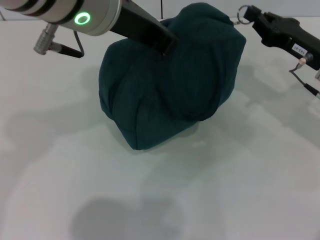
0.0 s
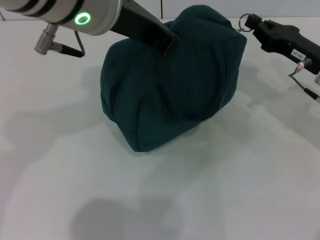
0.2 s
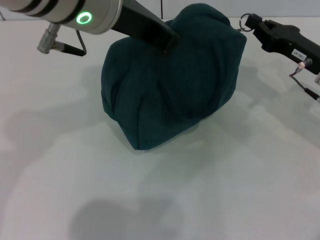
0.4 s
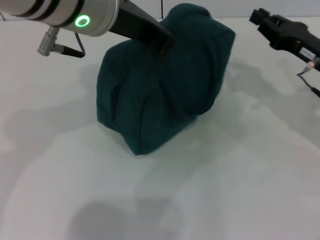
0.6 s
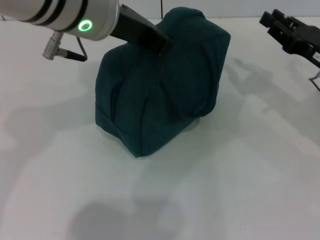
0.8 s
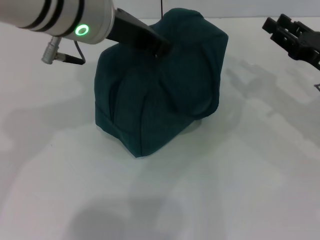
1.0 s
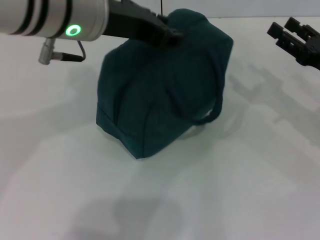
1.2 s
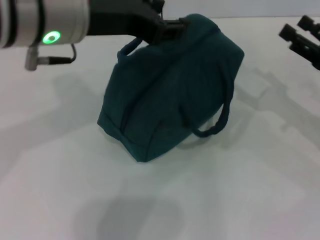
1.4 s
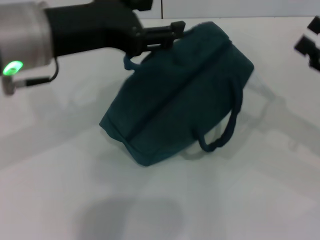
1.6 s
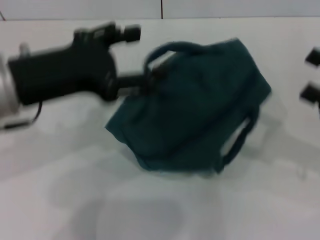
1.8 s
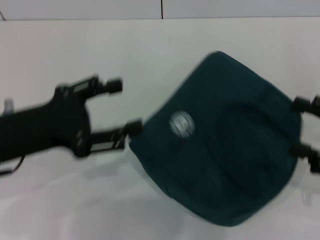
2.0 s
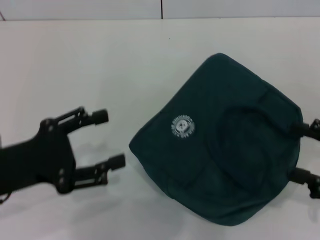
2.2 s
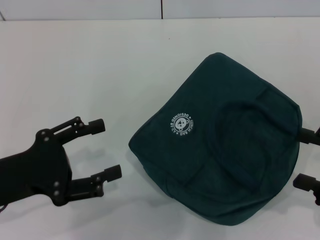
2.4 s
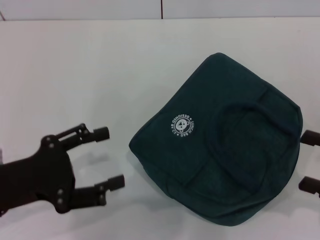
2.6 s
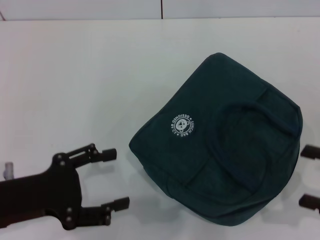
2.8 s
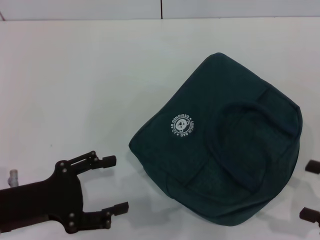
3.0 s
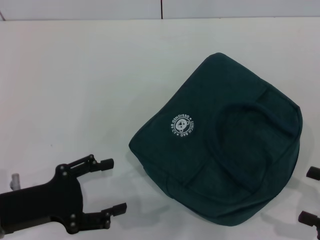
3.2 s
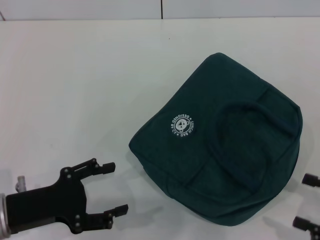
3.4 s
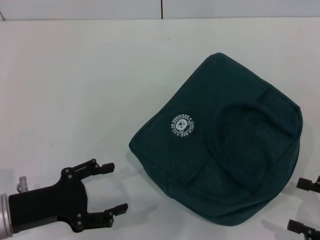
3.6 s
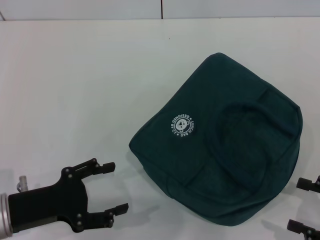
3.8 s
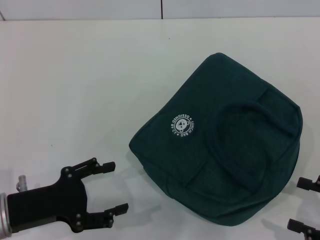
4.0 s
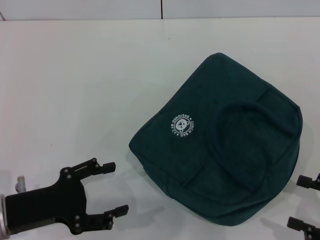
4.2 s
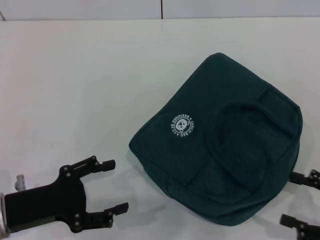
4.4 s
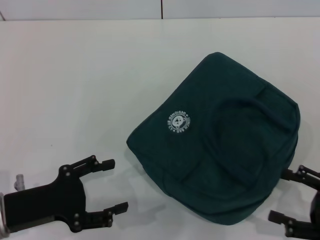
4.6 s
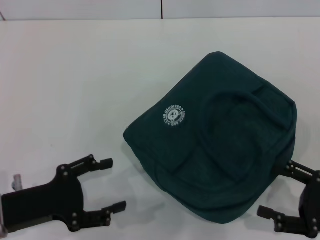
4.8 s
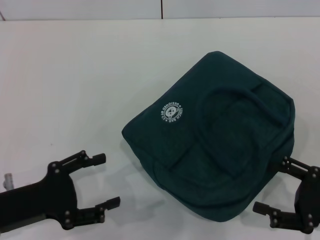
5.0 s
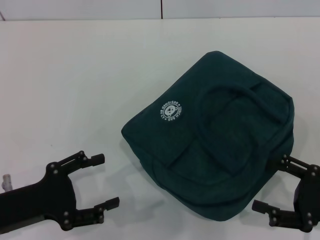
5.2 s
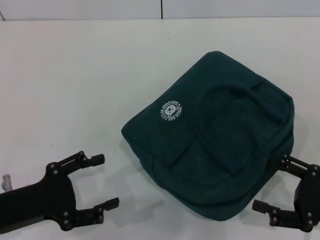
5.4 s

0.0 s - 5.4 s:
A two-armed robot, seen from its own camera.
Step, 0.6 s - 1.2 s: Hold the lunch bag with your left hand.
0.0 s - 1.4 s: The left gripper shifts by some 5 cm, and opens; the right gripper is displaced to the right and backward by some 10 cm, and opens.
1.4 s - 2.8 s: The right gripper moves backward, approximately 10 cm; the left gripper goes some 25 cm downward, to the left and backward, and opens up.
2.8 s - 4.0 s: The left gripper is displaced downward by some 5 cm. Meanwhile the right gripper shifts by about 5 cm.
4.0 s - 5.4 s: The right gripper changes place by approximately 5 cm.
